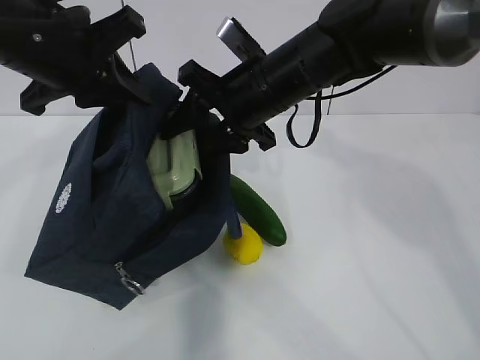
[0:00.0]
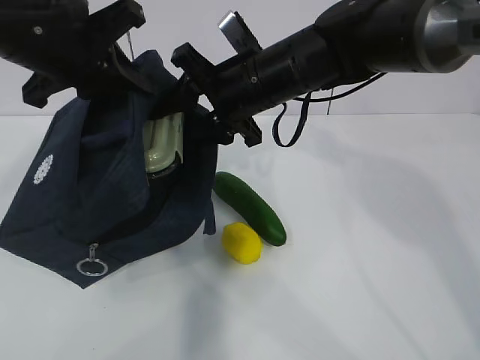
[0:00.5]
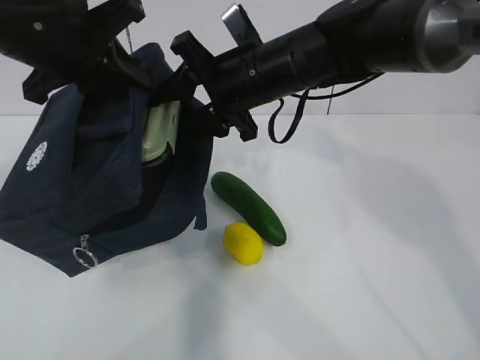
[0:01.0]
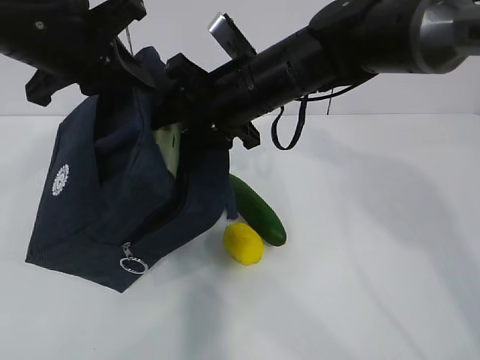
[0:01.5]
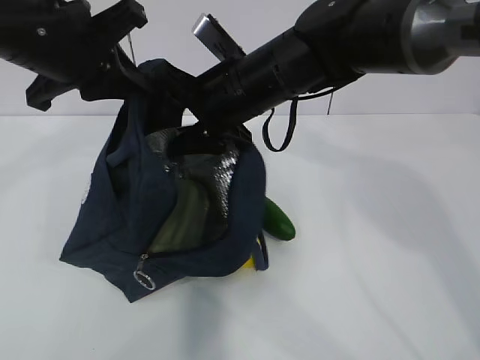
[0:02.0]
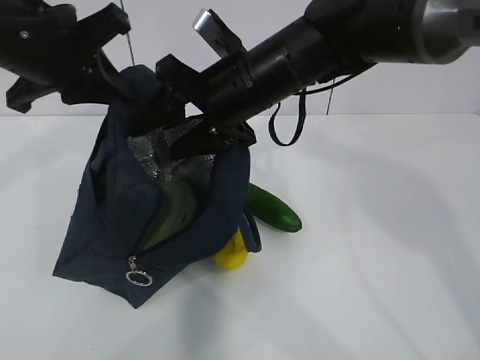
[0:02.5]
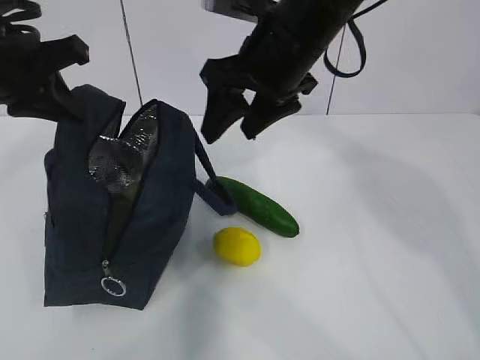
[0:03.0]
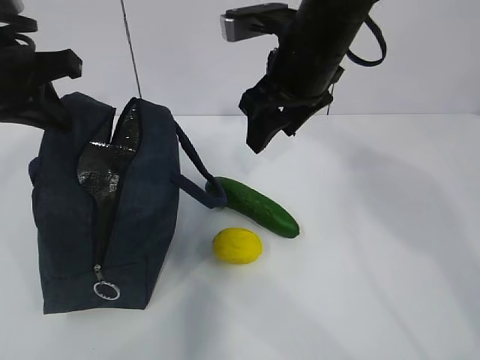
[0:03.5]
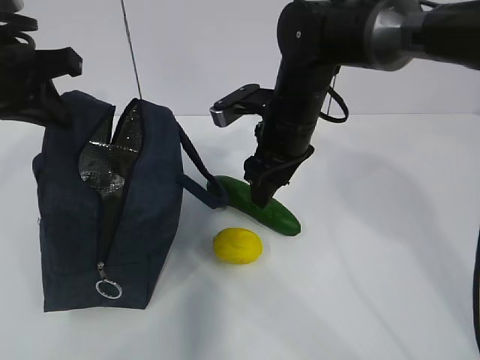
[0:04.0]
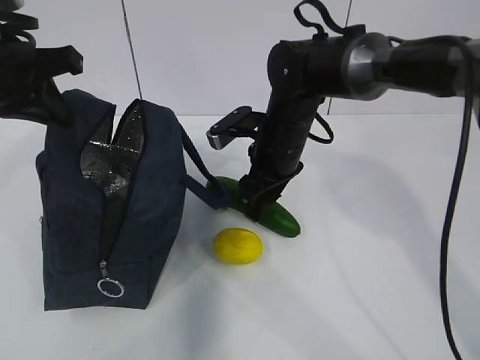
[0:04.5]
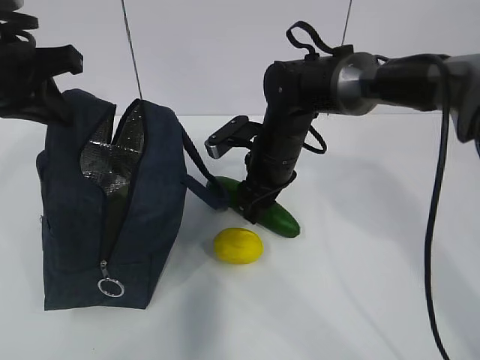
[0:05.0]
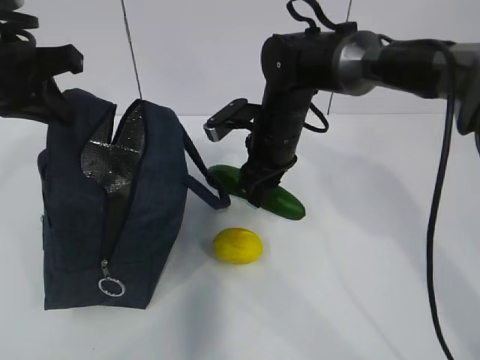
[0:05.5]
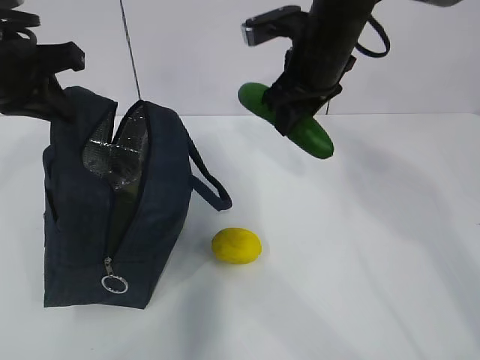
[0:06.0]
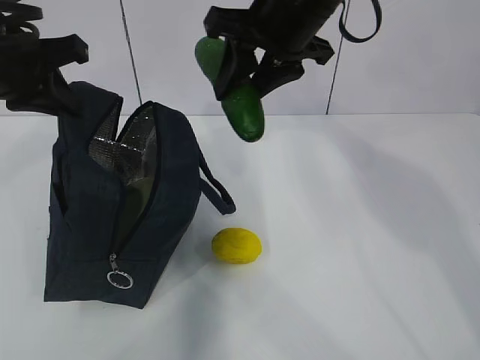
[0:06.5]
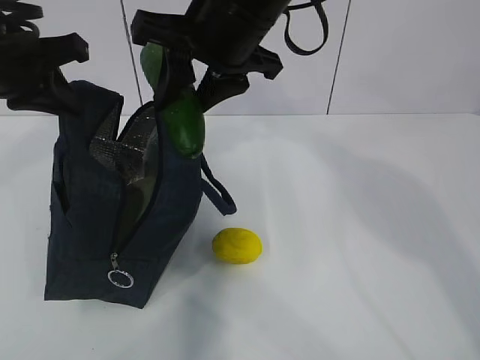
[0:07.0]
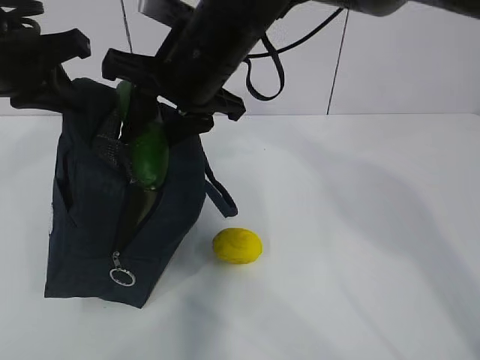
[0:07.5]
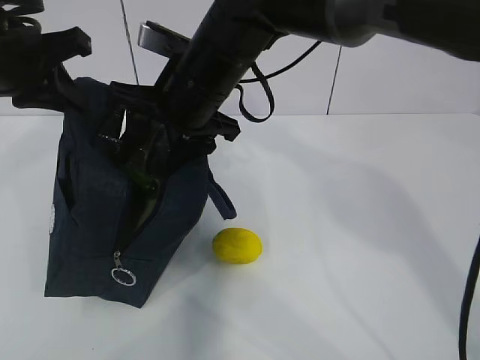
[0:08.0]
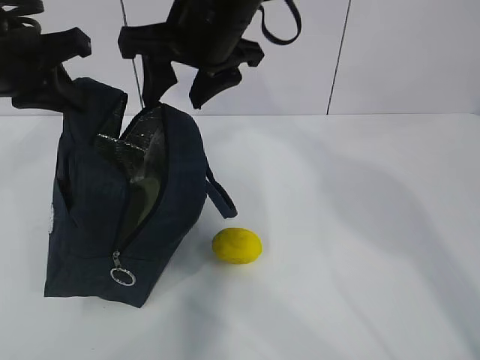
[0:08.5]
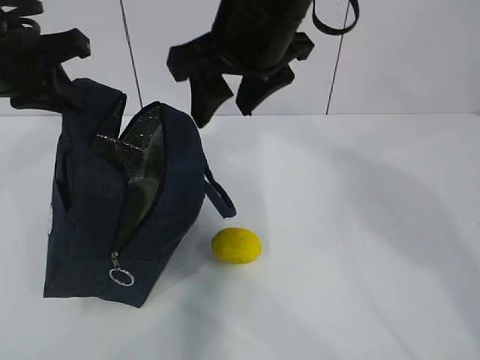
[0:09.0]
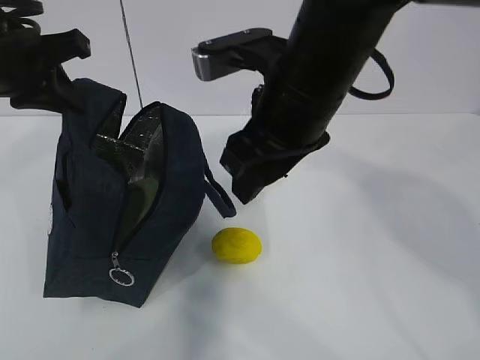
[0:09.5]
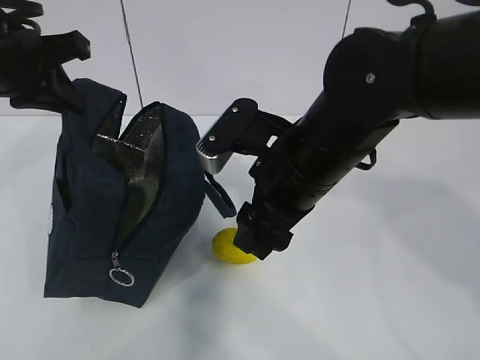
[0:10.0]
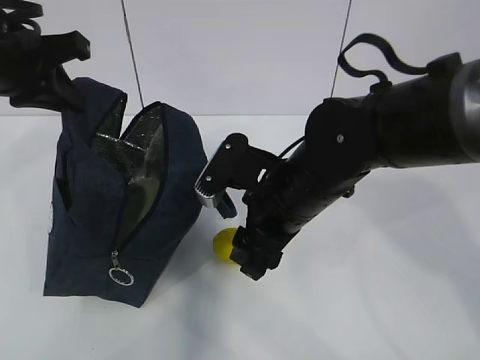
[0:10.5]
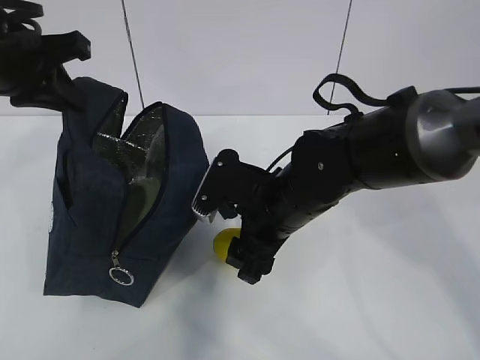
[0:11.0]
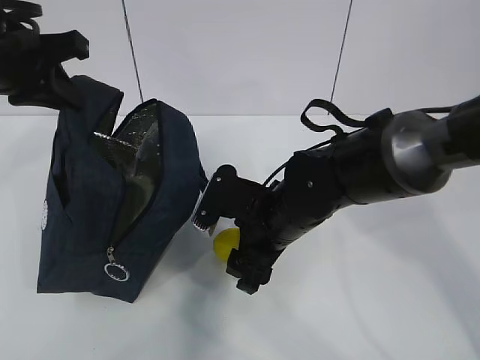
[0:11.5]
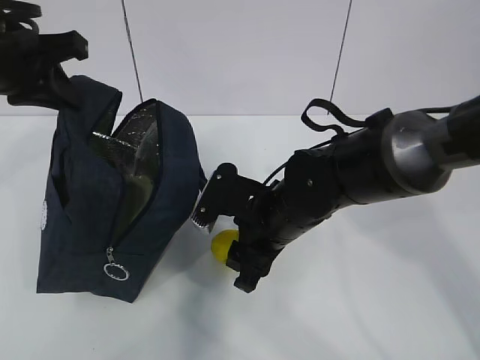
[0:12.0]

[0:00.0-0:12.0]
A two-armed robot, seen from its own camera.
Step, 0:01.0 to 0:03.0: Place it into the bag with your right hand.
Step, 0:03.5 to 0:06.0: Grab the lemon with your right hand.
Step, 0:09.5 to 0:10.5: Grab the lunch bag with your right hand.
0:00.0 to 0:02.0: There are only small adjustments of the grippers.
0:02.0 to 0:04.0: The right gripper goes about 5 cm to the right. The left gripper heads to the left, covering some 5 cm.
0:04.0 to 0:06.0: The right gripper is displaced upward by approximately 5 cm.
0:06.0 to 0:08.0: The right gripper is displaced to the left and backward by about 15 cm.
0:08.0 to 0:10.0: The right gripper is displaced to the right and backward by approximately 10 cm, and goes upward and returns, approximately 10 cm each way.
0:10.0 to 0:12.0: The right gripper heads downward, covering roughly 10 cm.

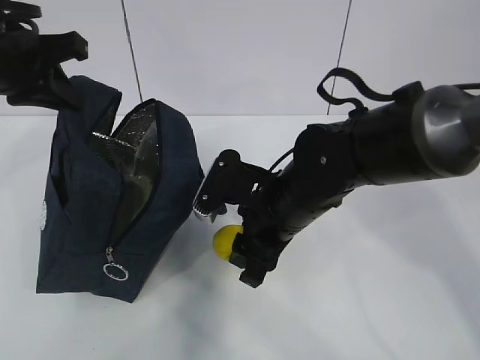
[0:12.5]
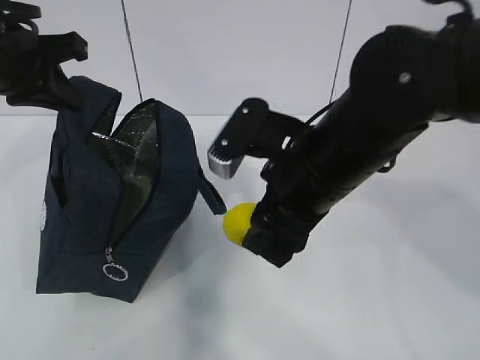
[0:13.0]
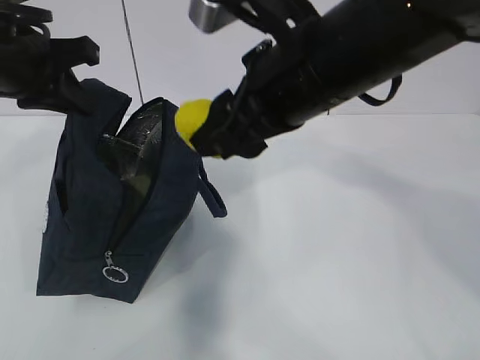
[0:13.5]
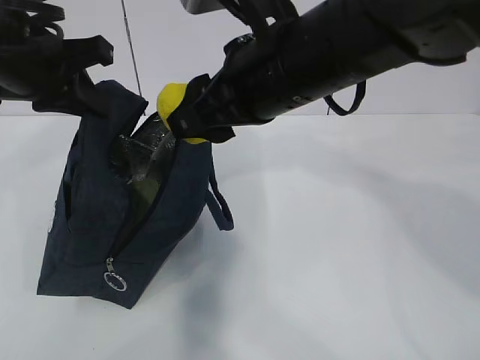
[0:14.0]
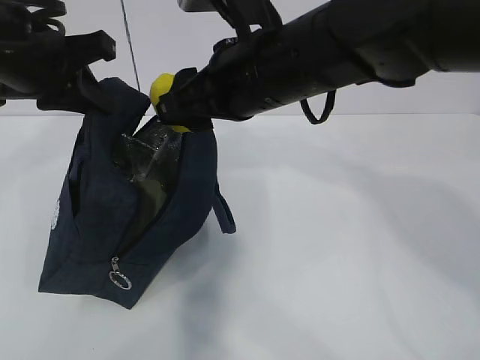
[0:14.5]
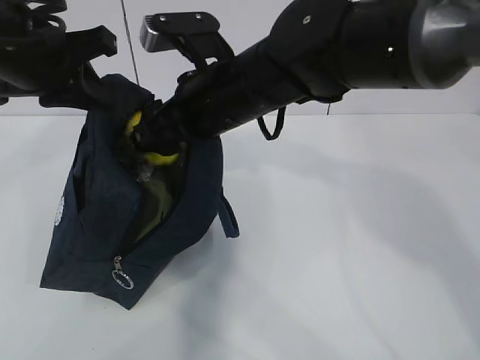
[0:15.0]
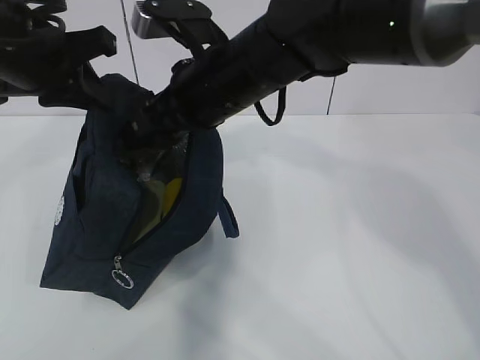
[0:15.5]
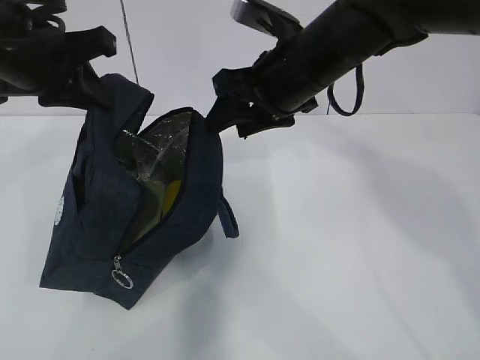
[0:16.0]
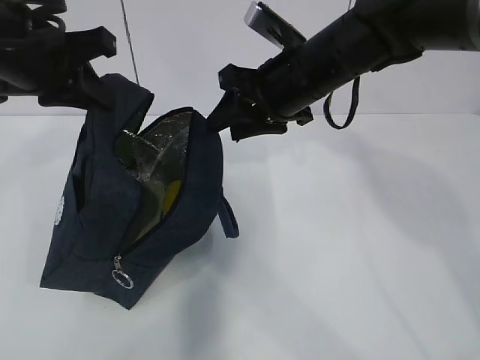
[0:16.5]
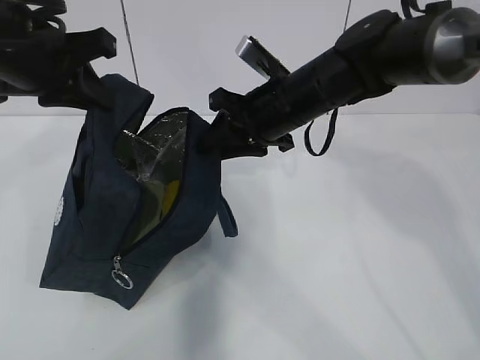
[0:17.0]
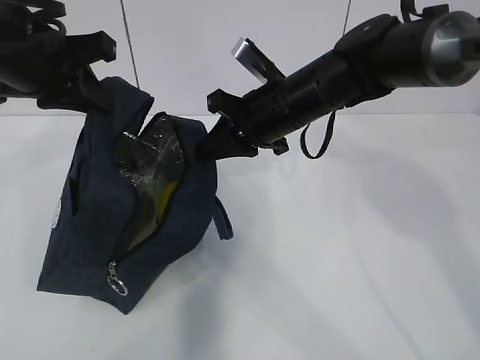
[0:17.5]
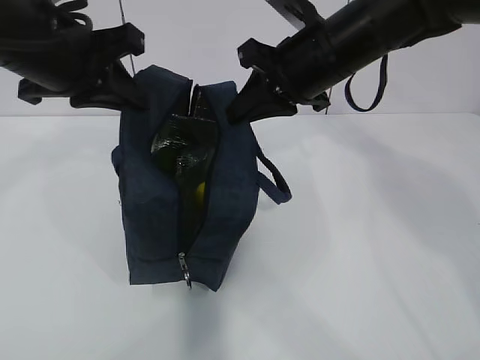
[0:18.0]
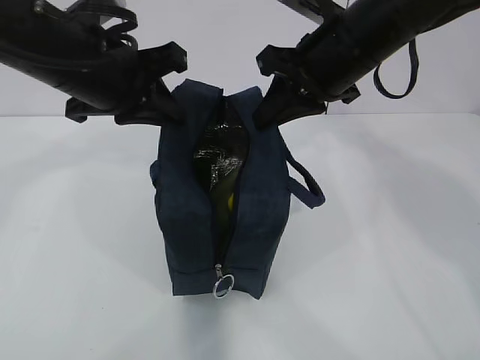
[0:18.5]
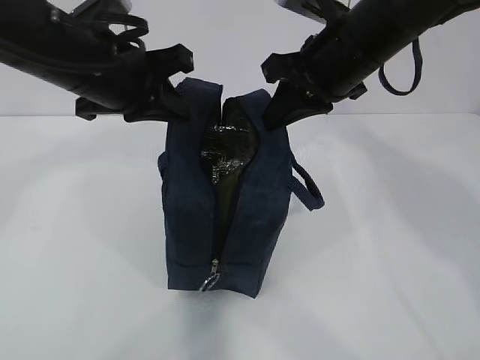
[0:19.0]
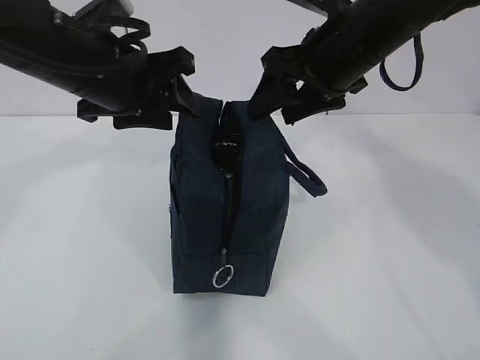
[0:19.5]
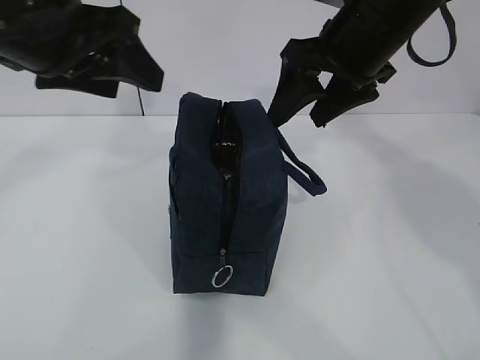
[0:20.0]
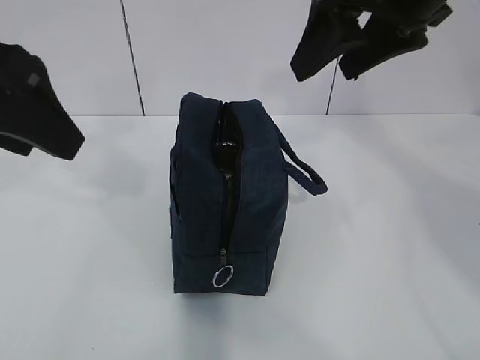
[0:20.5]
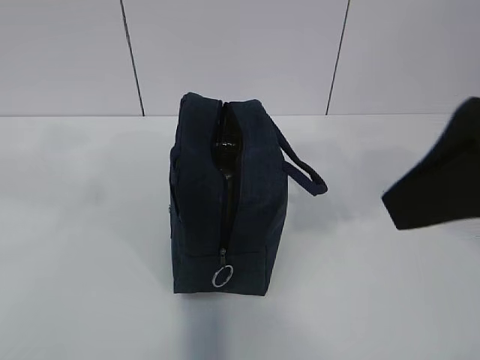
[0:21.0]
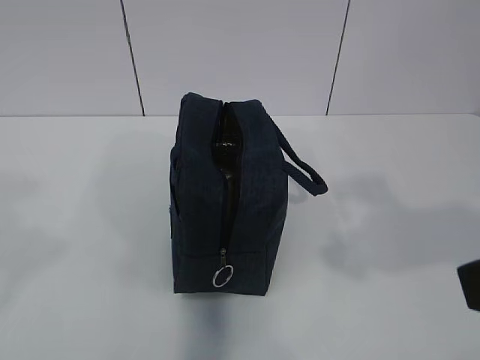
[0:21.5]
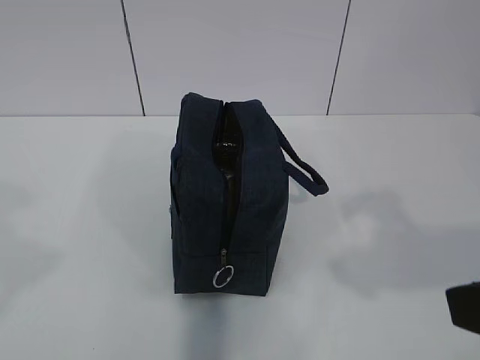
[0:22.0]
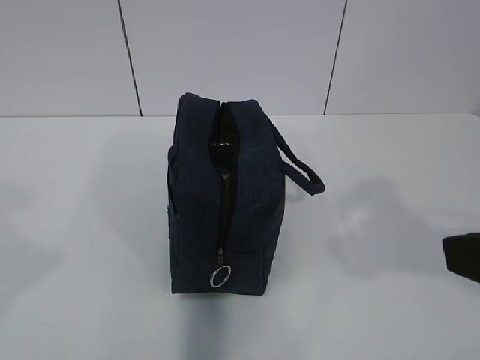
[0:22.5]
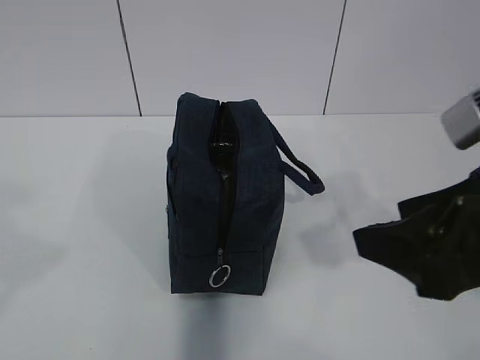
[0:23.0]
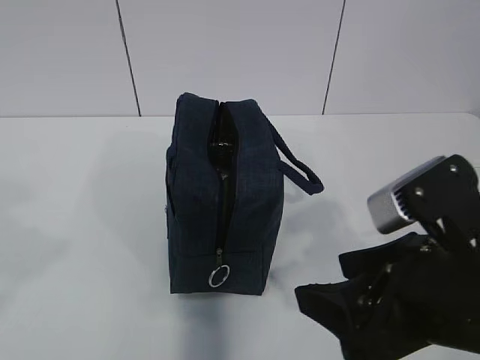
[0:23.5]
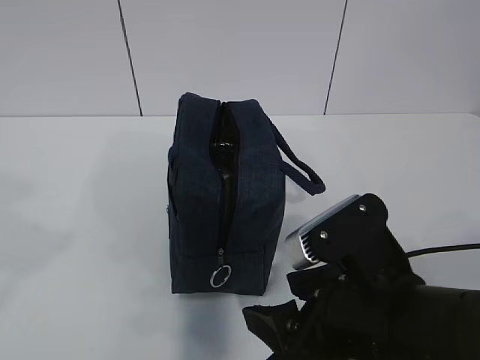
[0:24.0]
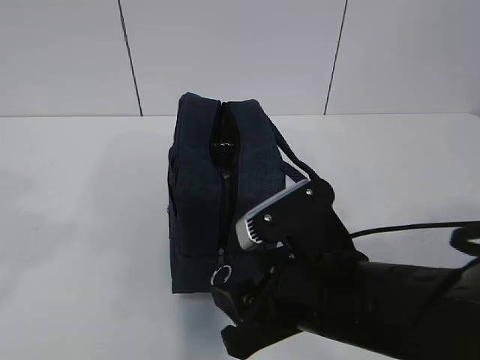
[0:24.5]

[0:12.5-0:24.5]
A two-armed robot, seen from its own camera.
0:12.5 to 0:14.5: The right gripper heads upward, covering approximately 15 cm.
0:14.5 to 0:16.5: The right gripper is displaced forward and to the right by approximately 10 cm.
0:16.5 to 0:18.5: The left gripper is displaced to the right by roughly 5 cm, while the right gripper changes place by approximately 5 cm, and closes up.
0:18.5 to 0:20.5: The right gripper heads upward and backward, covering about 10 cm, and opens. The left gripper shifts roughly 15 cm backward, upward and to the left, and opens up.
0:20.5 to 0:22.5: The right gripper shifts approximately 20 cm backward; the left gripper travels backward and to the left by some 20 cm.
0:22.5 to 0:24.5: The right gripper is displaced downward, to the left and forward by roughly 20 cm.

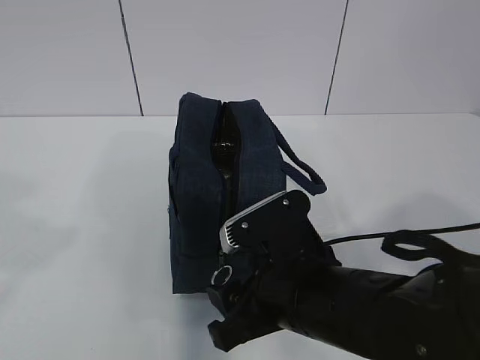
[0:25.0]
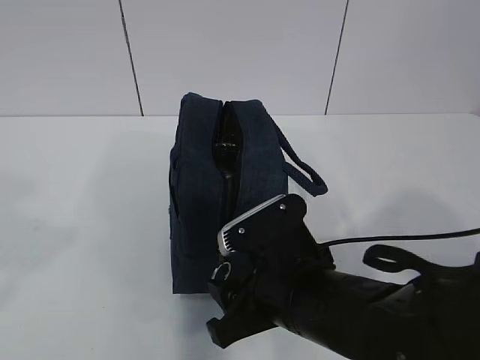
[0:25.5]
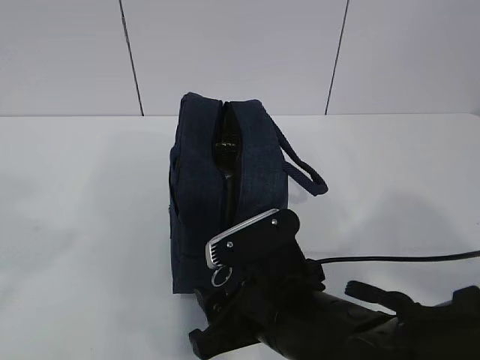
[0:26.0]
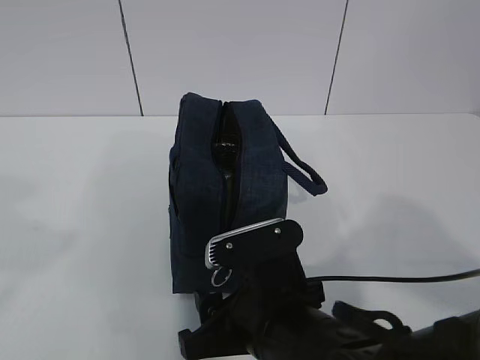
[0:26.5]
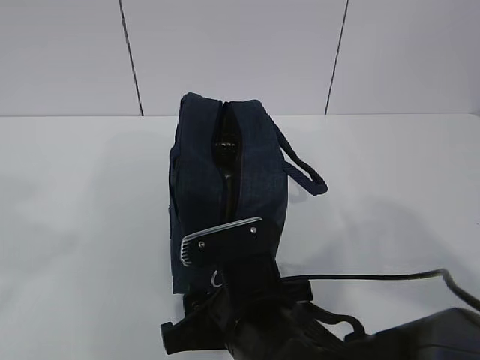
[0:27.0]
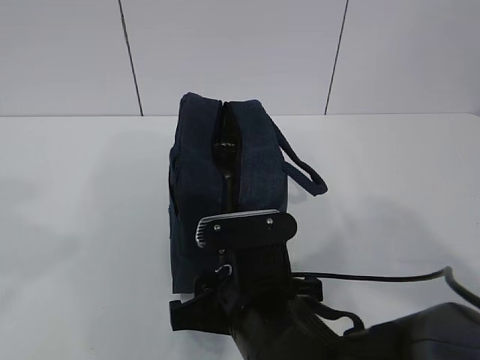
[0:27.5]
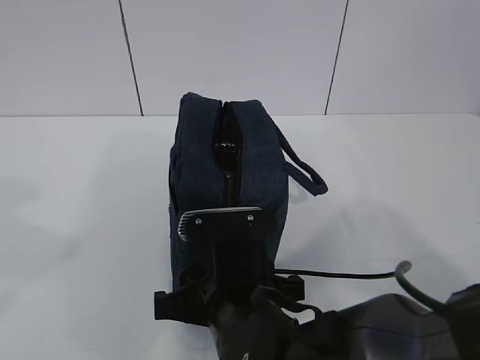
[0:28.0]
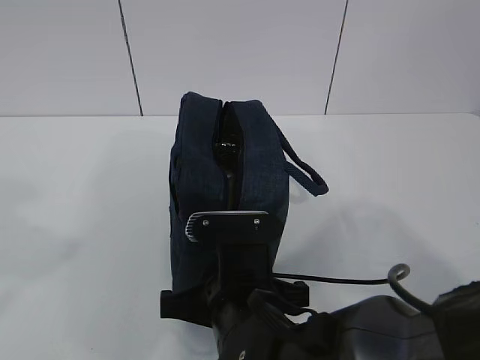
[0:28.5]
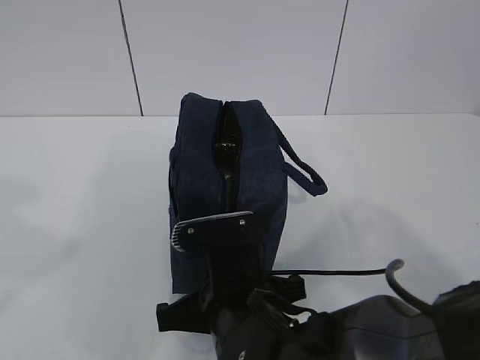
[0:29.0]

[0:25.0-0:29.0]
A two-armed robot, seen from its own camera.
0:25.0 to 0:27.0: The right gripper shifts by roughly 5 cm.
0:27.0 to 0:29.0: The right gripper closes its fingers.
